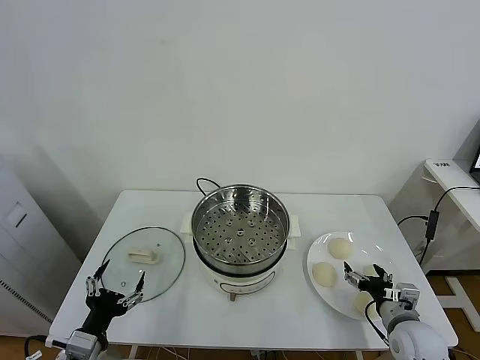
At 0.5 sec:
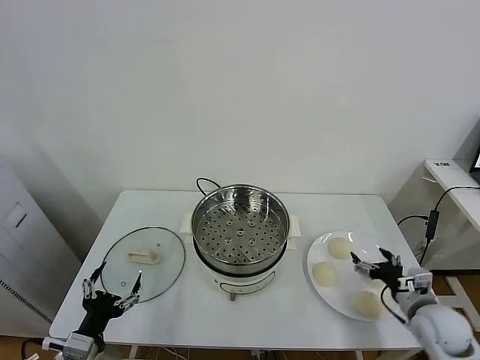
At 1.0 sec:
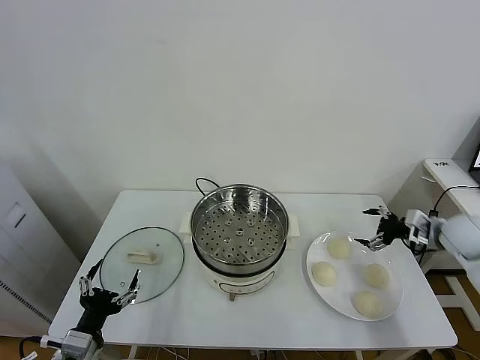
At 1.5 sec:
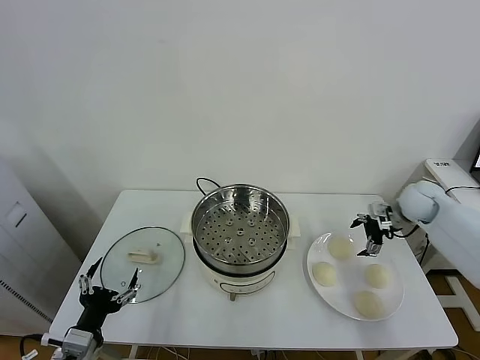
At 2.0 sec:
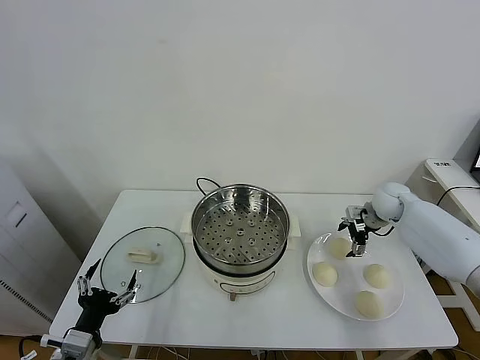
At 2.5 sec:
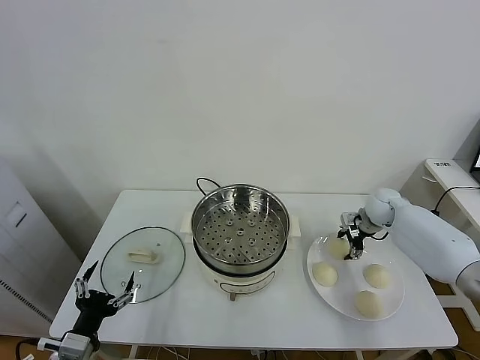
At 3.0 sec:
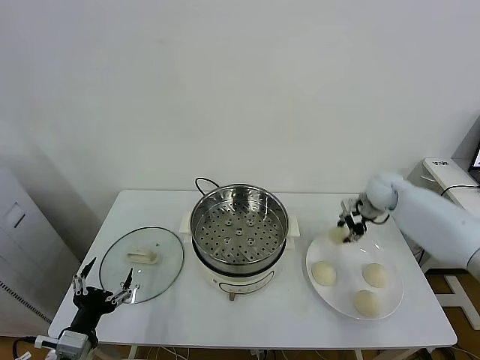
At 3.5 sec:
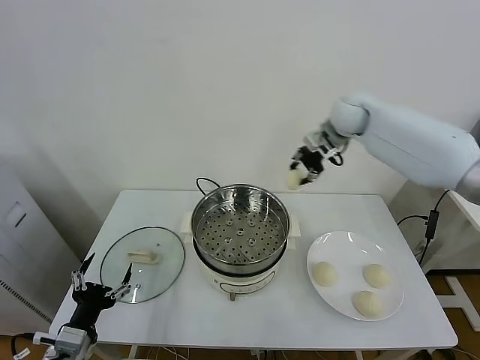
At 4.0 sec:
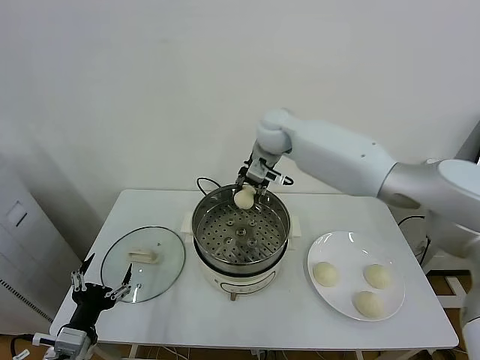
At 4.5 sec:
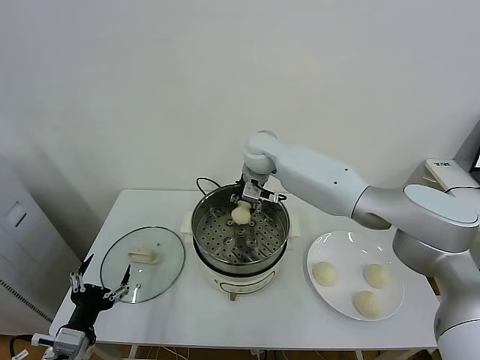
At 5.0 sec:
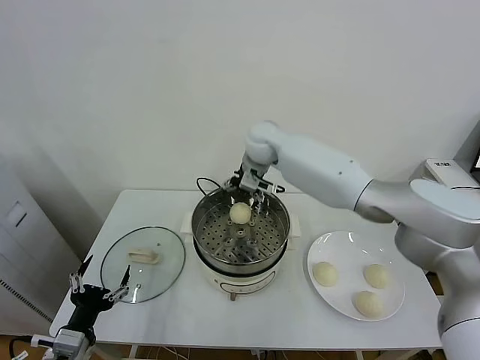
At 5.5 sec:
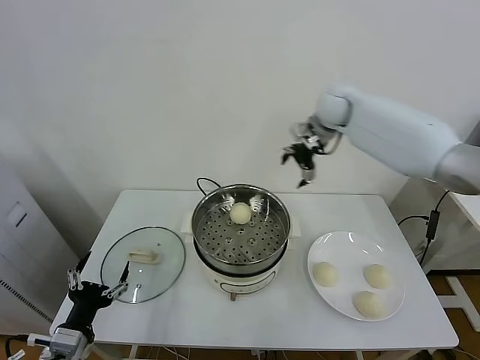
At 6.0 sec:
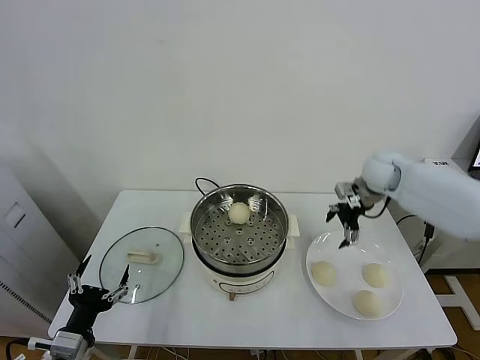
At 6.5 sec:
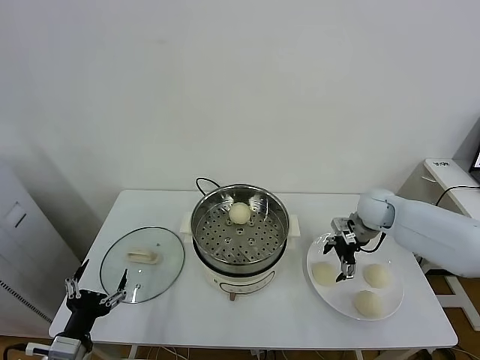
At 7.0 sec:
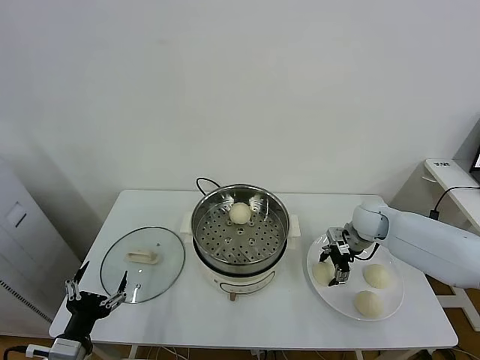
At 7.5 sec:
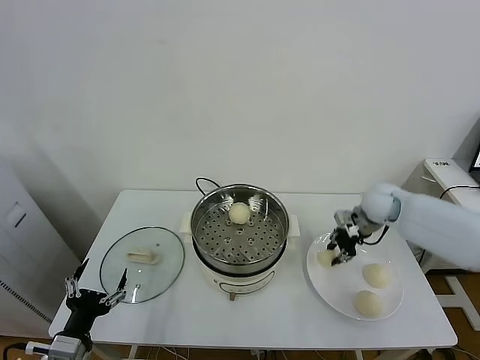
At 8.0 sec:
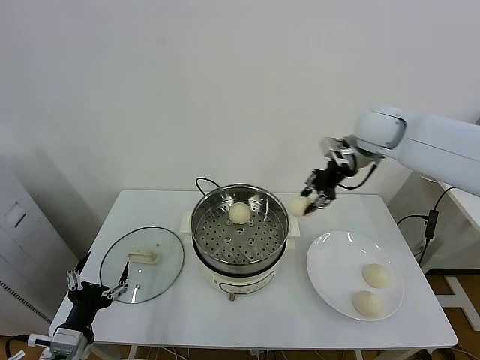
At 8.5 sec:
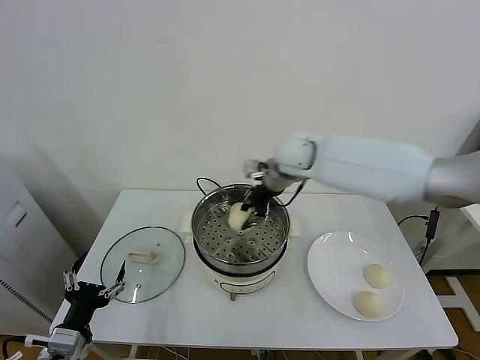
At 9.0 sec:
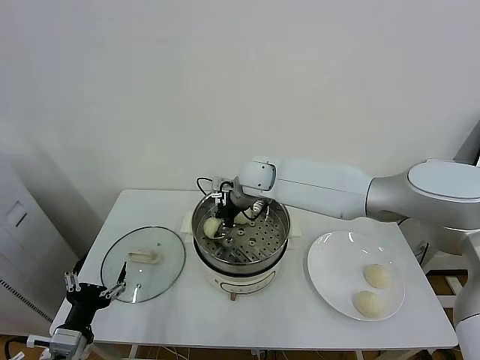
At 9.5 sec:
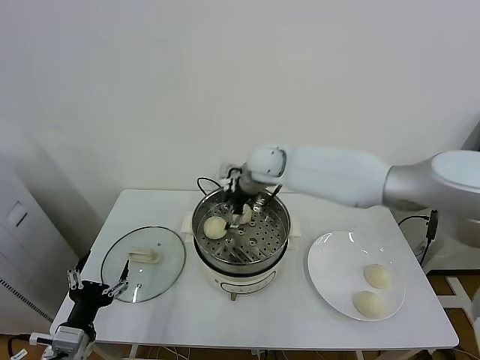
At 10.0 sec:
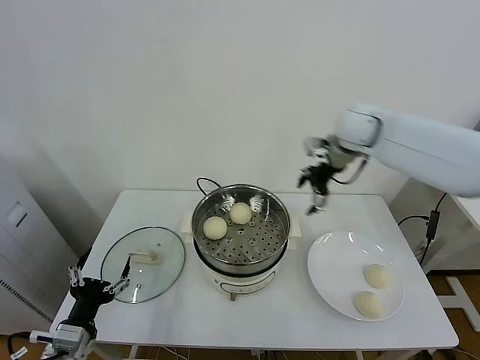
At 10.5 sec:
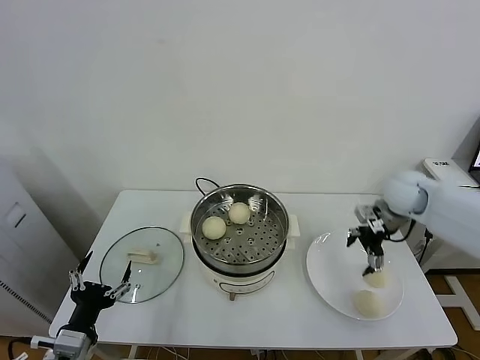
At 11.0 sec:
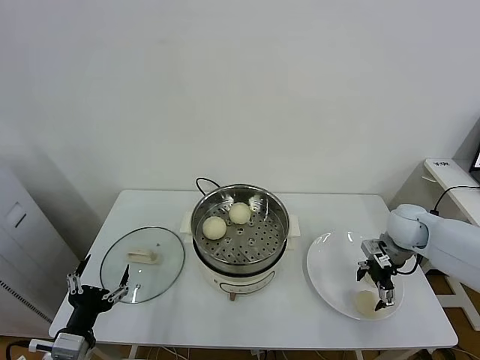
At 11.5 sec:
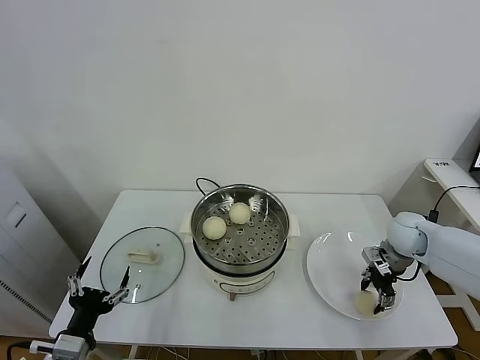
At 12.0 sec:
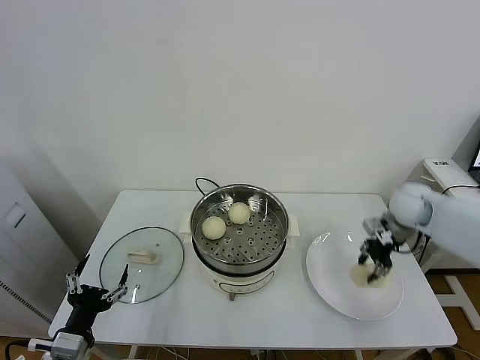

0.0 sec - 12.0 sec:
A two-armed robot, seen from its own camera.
Task of the whole recording: take steamed baozi put them in steamer.
Step, 0.0 sec - 2.0 sec: Grasp the baozi in the plate with right gripper.
Step, 3.0 sec - 4.5 sec: Place the baozi on the steamer with right gripper.
Step, 5.0 sec - 7.0 sec: Grasp the baozi in the plate with right gripper.
Step, 7.5 sec - 9.0 sec: Place the baozi on the steamer with right gripper.
Step, 9.5 sec - 11.5 sec: Grasp the baozi in the plate with right gripper.
2.0 sec - 4.0 sec: The right gripper moves to the left and upward, some 35 cm, and closes.
4.0 sec - 6.0 sec: The right gripper travels to the right by roughly 30 cm, and opens its fingers.
6.0 sec - 8.0 sec: The right gripper is displaced upward and to the left by some 15 cm, and closes its fingers.
8.0 sec - 10.0 sec: The right gripper reaches some 20 cm to the left, then returns, and opens.
10.0 sec - 12.0 sec: The right gripper shifts some 20 cm downward and to the right, and closes its fingers.

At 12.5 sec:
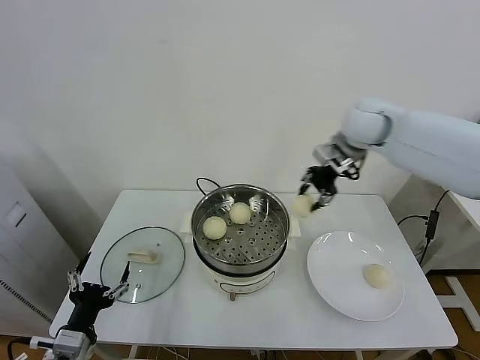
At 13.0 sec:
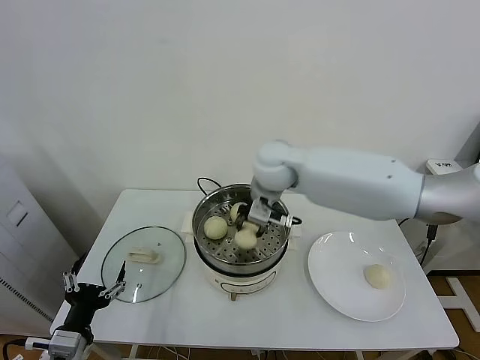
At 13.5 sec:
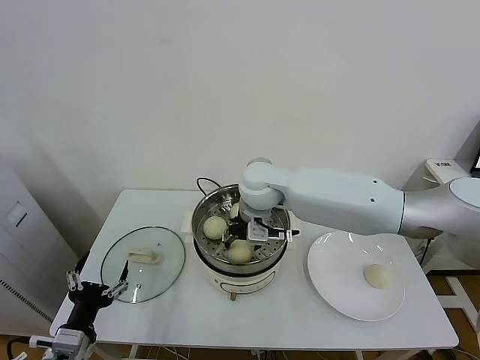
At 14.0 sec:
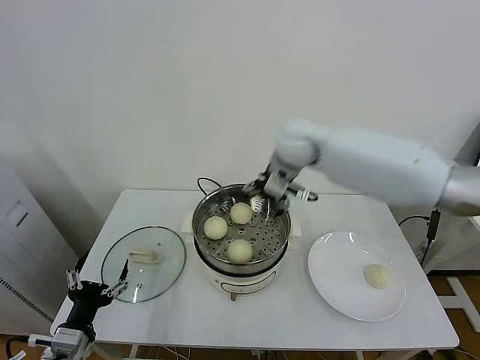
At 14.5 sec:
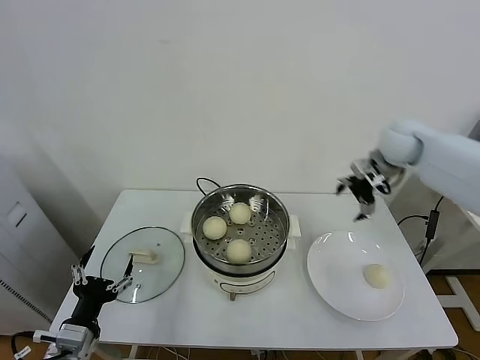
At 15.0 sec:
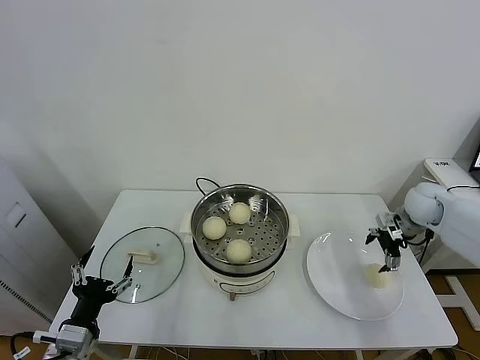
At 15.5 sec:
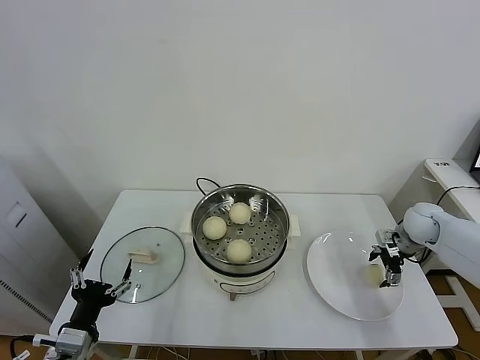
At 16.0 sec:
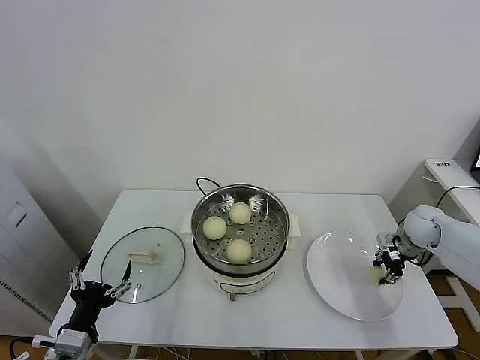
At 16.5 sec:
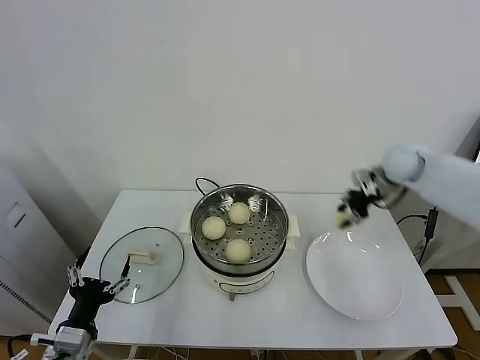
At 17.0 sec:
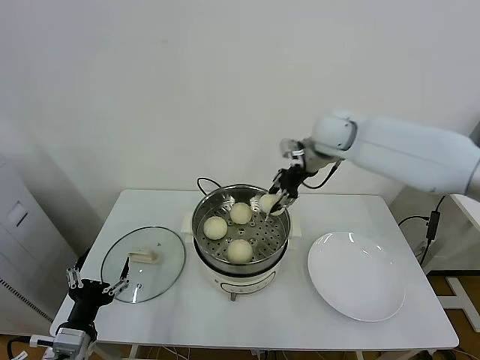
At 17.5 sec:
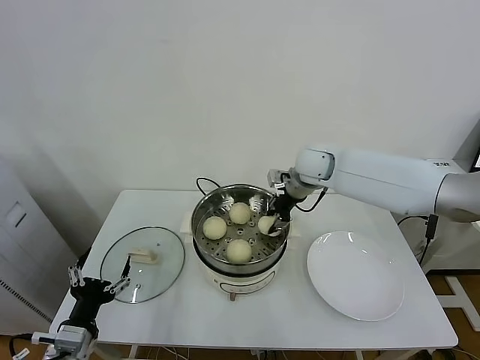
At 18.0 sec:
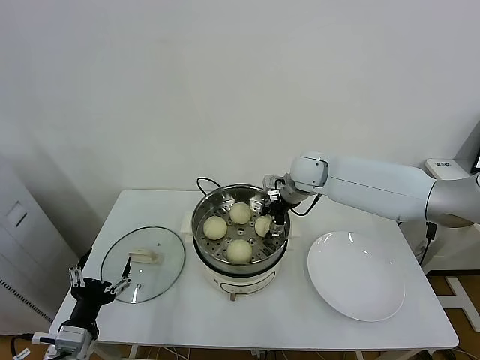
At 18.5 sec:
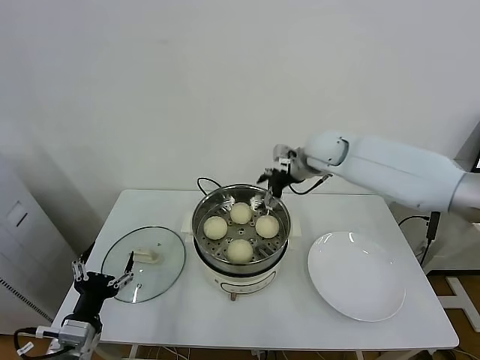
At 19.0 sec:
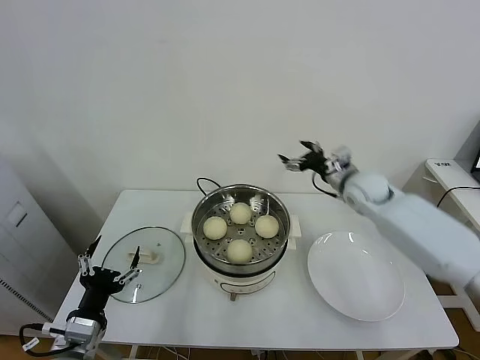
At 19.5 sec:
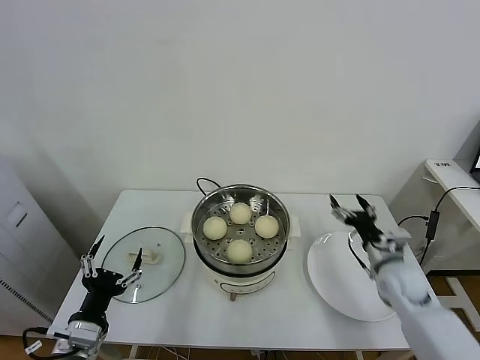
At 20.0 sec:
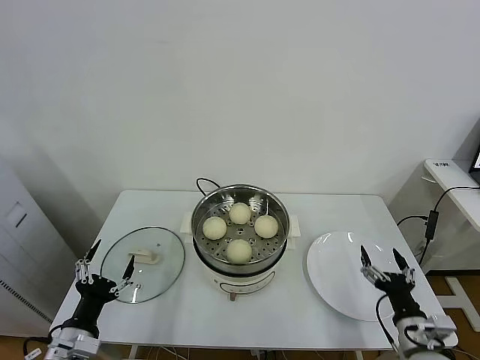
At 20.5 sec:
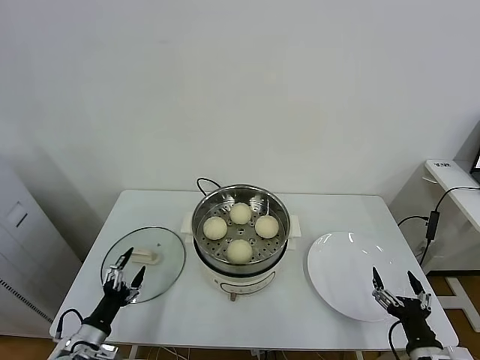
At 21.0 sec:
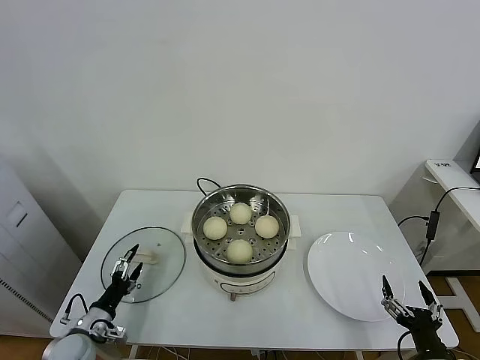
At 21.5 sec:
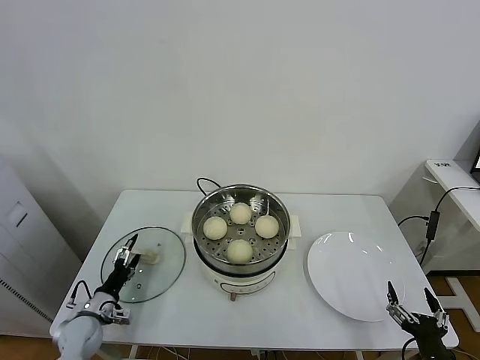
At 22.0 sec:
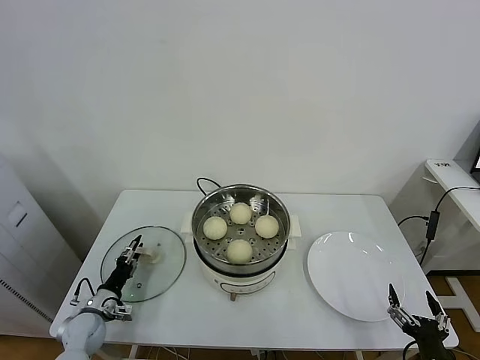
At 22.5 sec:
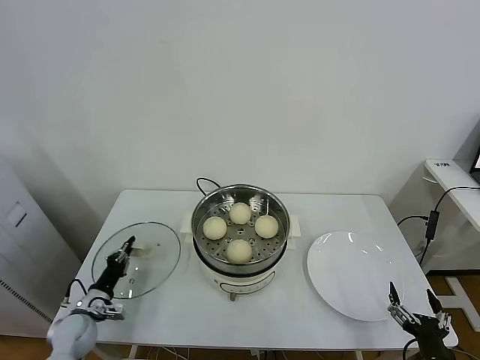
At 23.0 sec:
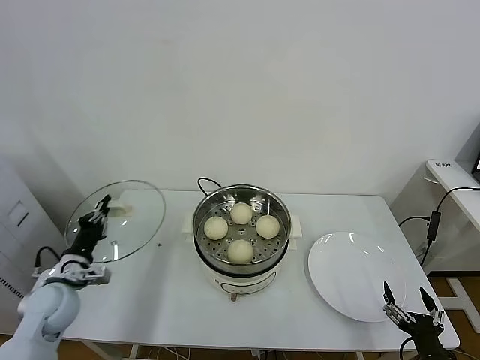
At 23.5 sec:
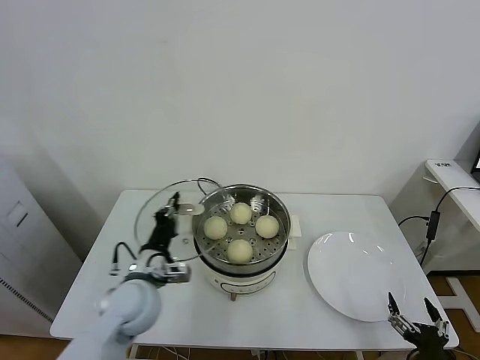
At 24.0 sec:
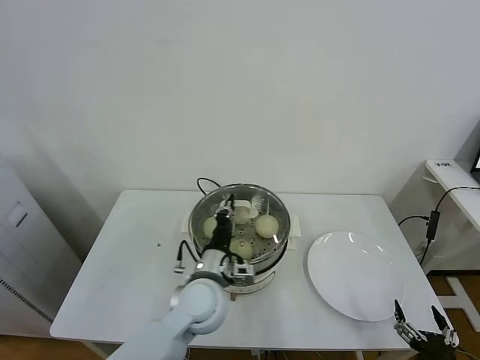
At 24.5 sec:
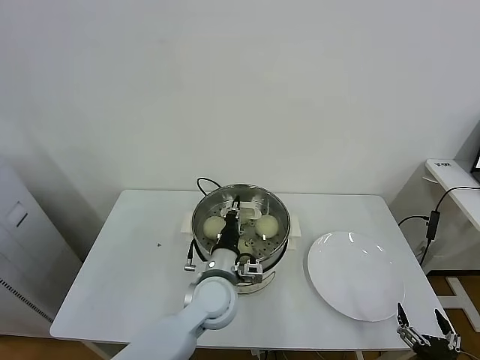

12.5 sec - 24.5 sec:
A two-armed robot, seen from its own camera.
Task of the whole recording: take steamed baozi put them in steamer.
Step, 12.5 sec - 13.5 sec: Place the baozi on the steamer with right gripper.
Step, 14.0 sec - 15.5 sec: Grasp the baozi in the plate with right gripper.
Step, 16.0 sec - 18.0 sec: Place the baozi on the steamer with right gripper.
Step, 18.5 sec - 22.5 sec: Grasp the pot lid with left gripper.
12.5 sec - 14.5 sec: The right gripper is displaced to the right and downward by approximately 15 cm, and opens up.
14.5 sec - 16.5 sec: The right gripper travels downward and back again, roughly 20 cm each way, and closes up.
16.5 sec - 18.5 sec: The right gripper goes roughly 20 cm to the left, and opens its fingers.
18.5 sec - 20.5 sec: The right gripper shifts approximately 50 cm backward and downward. The left gripper heads downward, covering roughly 10 cm.
20.5 sec - 22.5 sec: The left gripper travels forward and downward by roughly 15 cm, and closes up.
22.5 sec - 24.5 sec: The left gripper travels to the right and upward by some 40 cm.

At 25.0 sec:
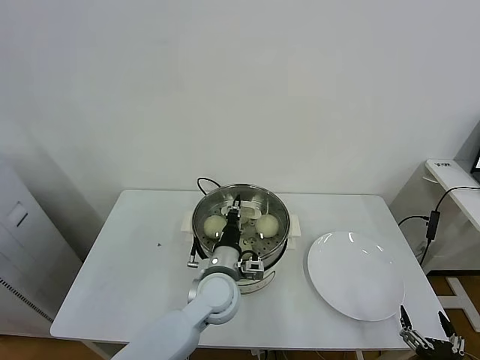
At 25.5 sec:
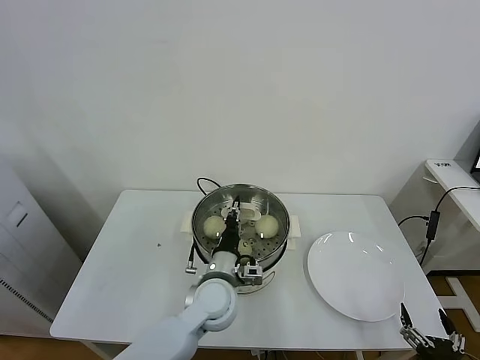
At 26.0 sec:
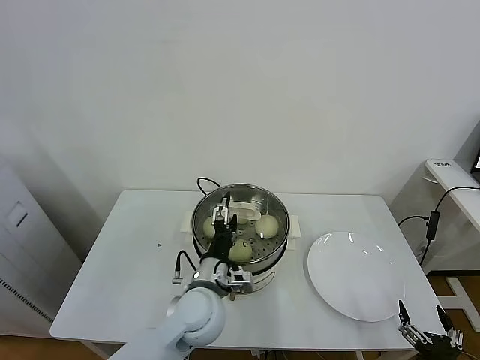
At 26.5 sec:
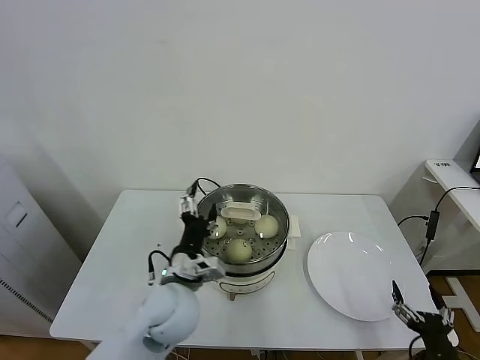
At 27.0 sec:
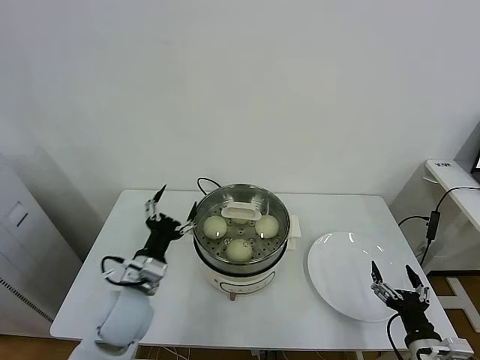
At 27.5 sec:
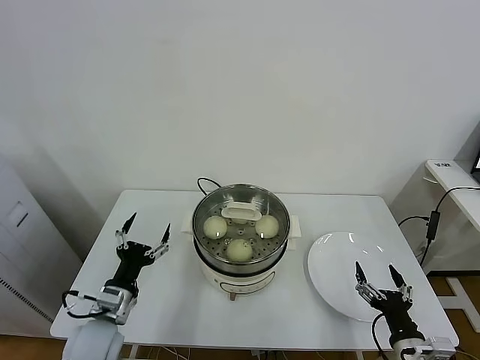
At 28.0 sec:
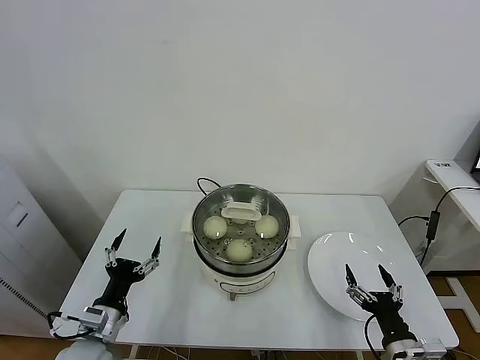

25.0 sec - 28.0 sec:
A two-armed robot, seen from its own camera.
Task of the whole recording: take steamed baozi put them in steamer.
25.0 sec - 26.5 sec: The left gripper shifts some 10 cm to the left, backward and upward, and opens up.
26.5 sec - 28.0 sec: The left gripper shifts about 20 cm to the left and downward. Meanwhile the right gripper goes about 10 cm to the left and forward.
